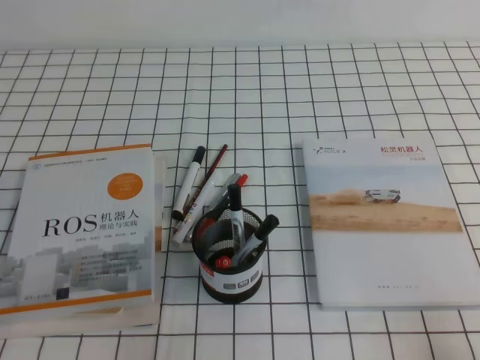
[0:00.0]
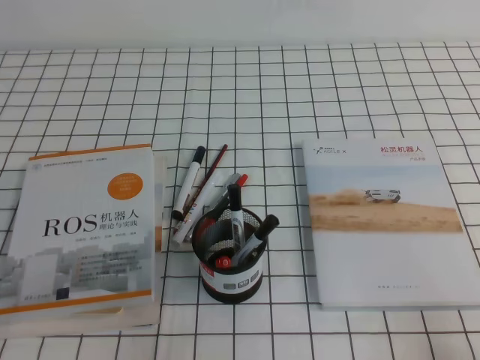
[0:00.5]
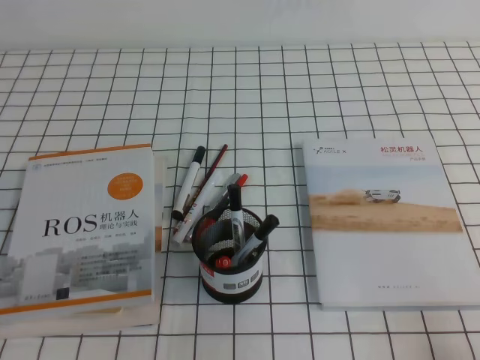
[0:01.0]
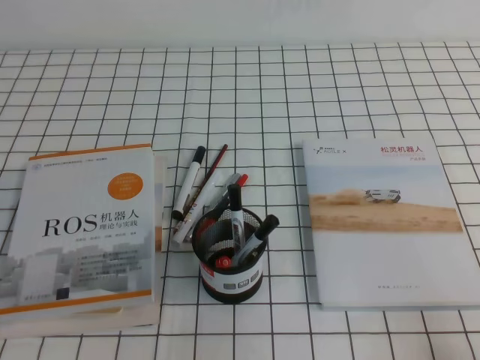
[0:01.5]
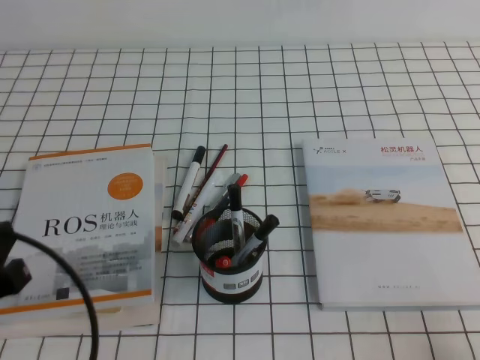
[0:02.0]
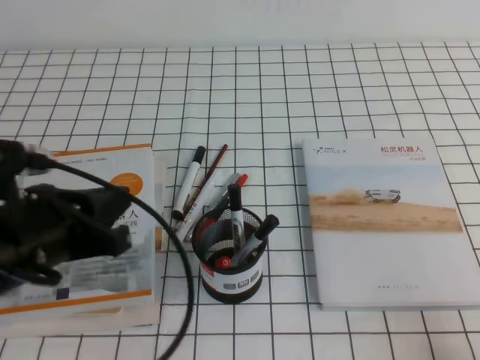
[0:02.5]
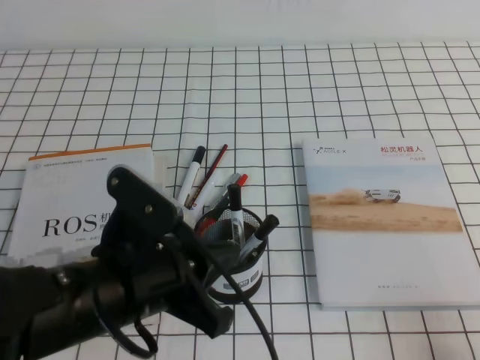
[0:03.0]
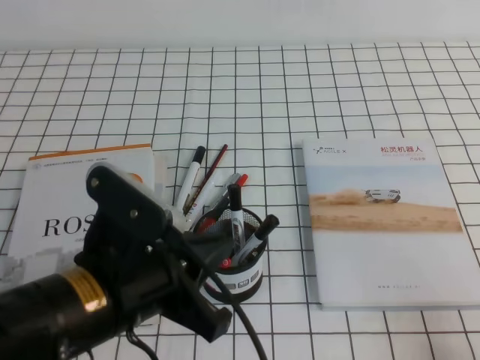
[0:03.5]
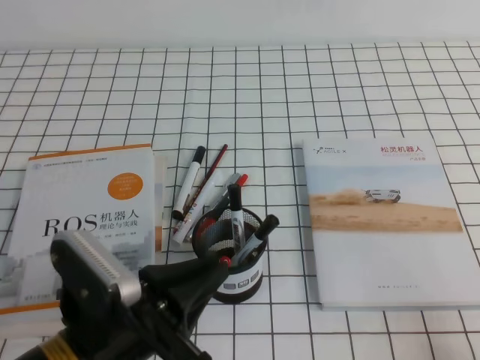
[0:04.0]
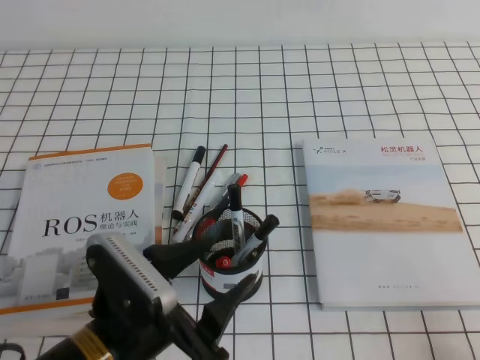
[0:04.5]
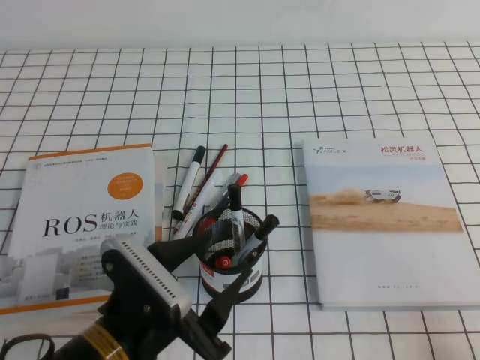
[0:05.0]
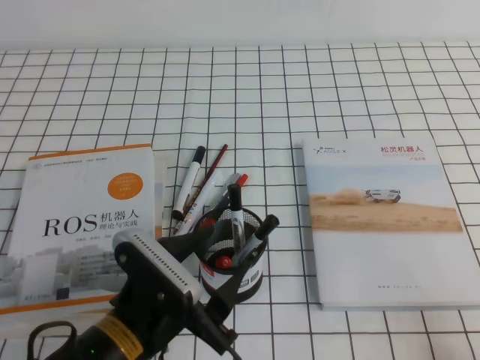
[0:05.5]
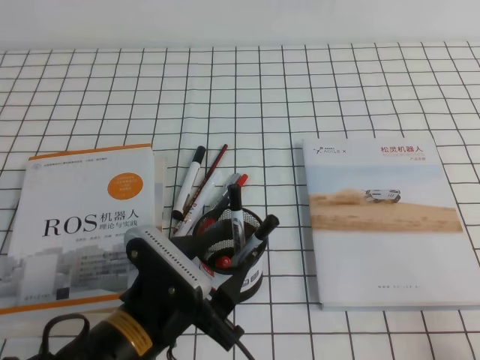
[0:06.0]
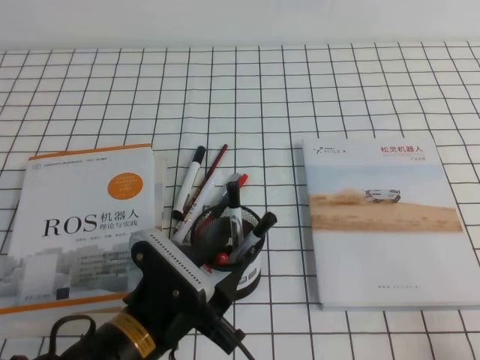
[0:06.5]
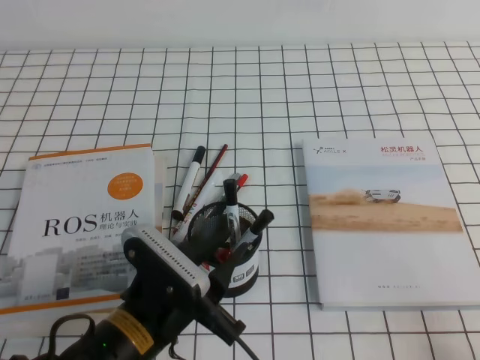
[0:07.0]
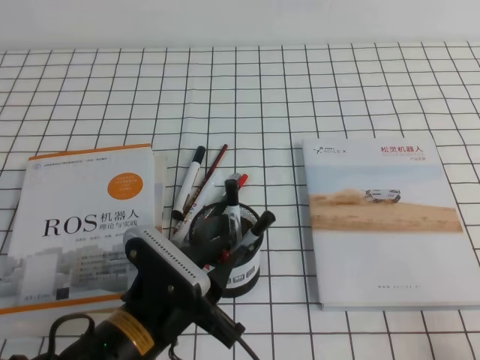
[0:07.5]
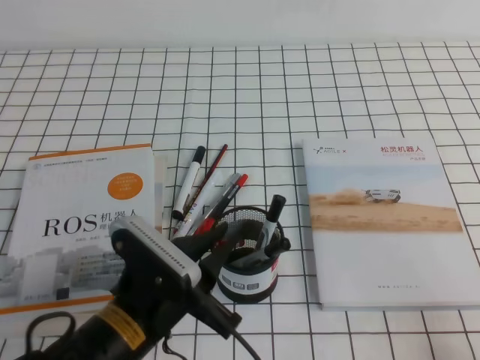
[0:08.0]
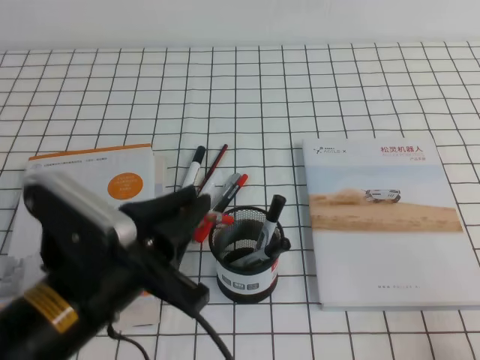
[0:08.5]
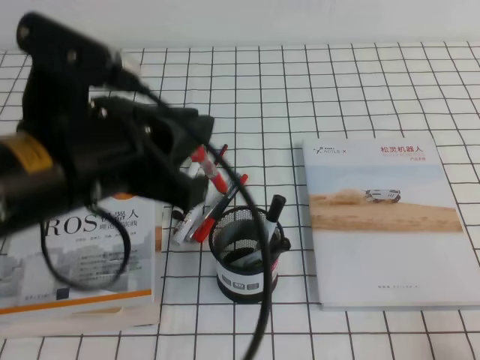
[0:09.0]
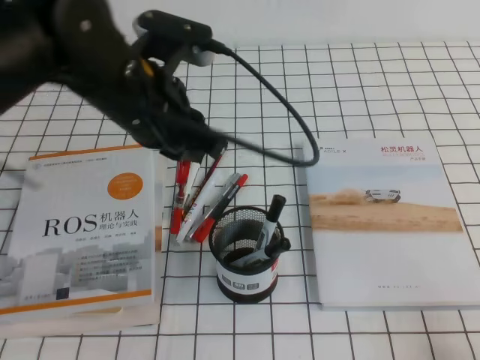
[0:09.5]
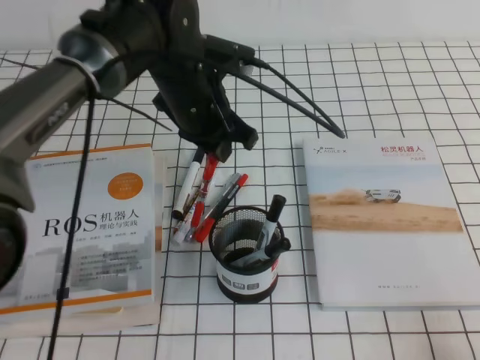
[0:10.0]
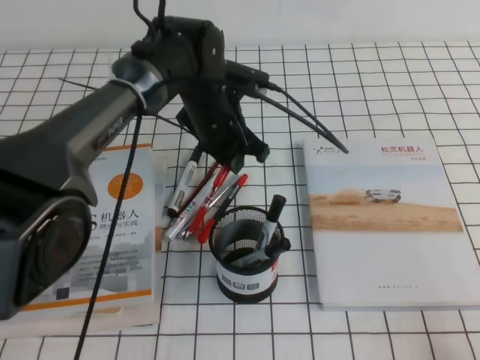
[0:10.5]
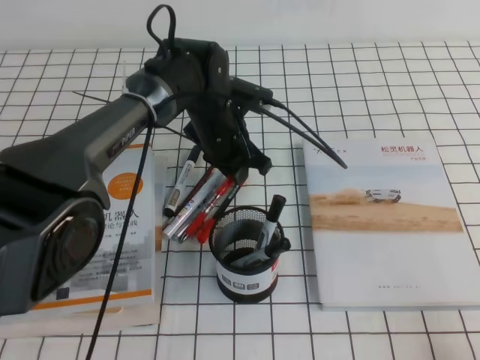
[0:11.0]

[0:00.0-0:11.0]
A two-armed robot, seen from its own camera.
0:02.0 to 0:03.5: The left gripper shifts roughly 15 cm to the right.
0:03.5 to 0:05.5: The left gripper moves downward, roughly 10 cm, and opens its fingers.
0:05.5 to 0:07.5: The left gripper closes up.
0:07.5 to 0:09.0: The left gripper moves upward, roughly 20 cm.
0:09.0 to 0:11.0: The left gripper shifts approximately 30 cm forward and downward.

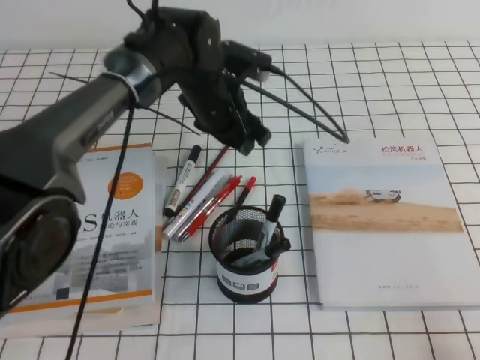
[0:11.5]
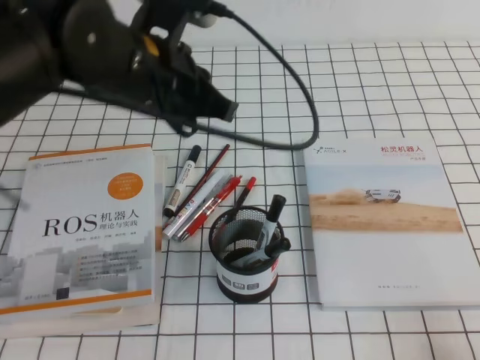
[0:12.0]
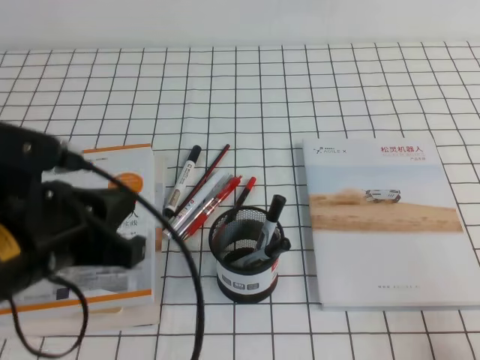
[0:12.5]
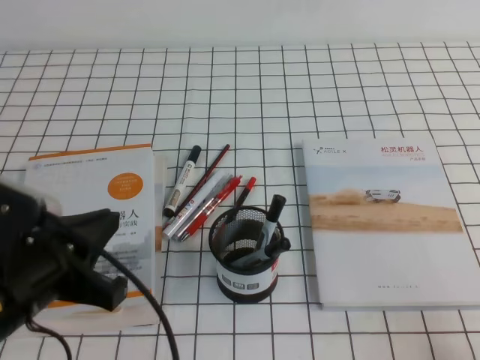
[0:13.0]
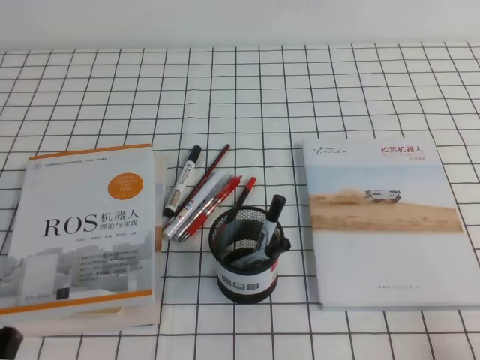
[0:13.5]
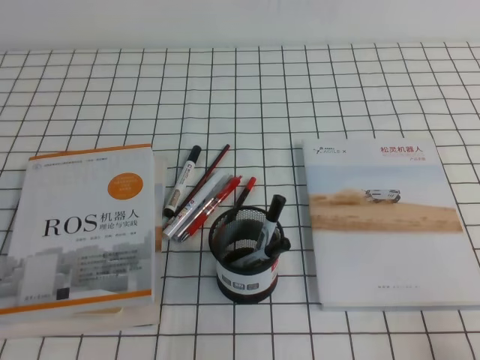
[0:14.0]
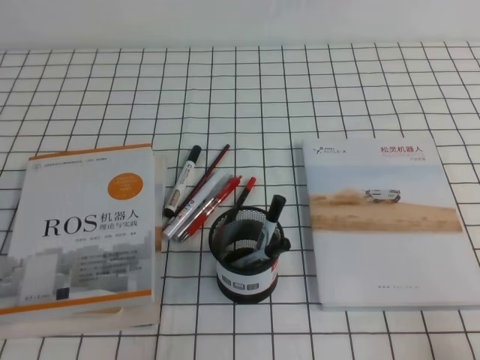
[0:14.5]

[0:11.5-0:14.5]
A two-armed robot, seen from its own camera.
Step, 0:11.5 to 0:14.5: Pick up the pen from the pen holder.
0:11.5 to 0:13.0: The left gripper travels backward and to the left by approximately 30 cm, and closes its fingers.
0:13.0 to 0:14.5: The left gripper moves backward, downward and to the left, roughly 15 cm.
